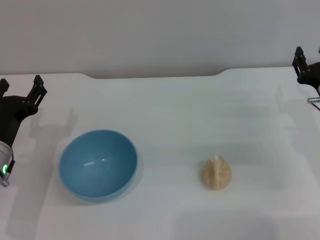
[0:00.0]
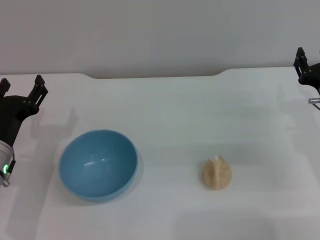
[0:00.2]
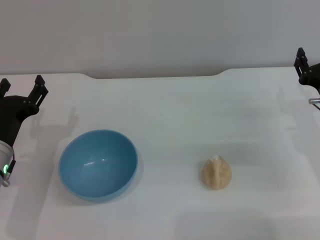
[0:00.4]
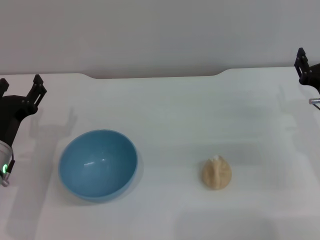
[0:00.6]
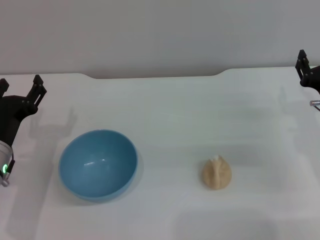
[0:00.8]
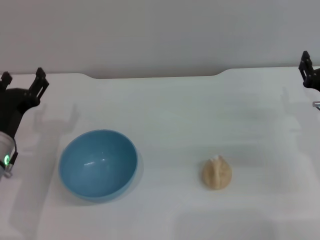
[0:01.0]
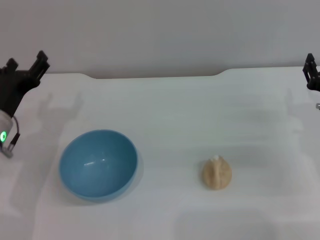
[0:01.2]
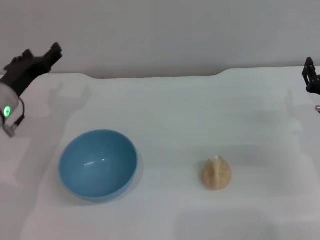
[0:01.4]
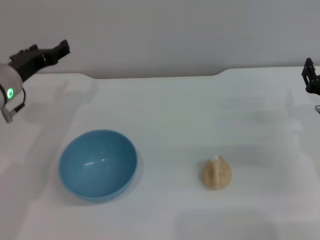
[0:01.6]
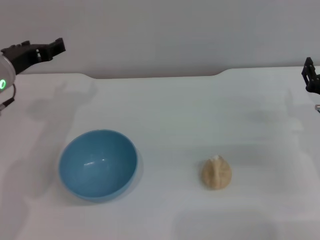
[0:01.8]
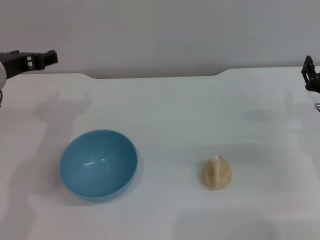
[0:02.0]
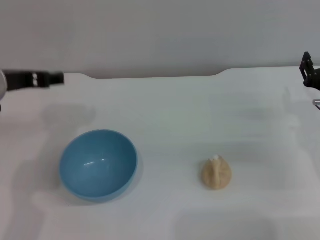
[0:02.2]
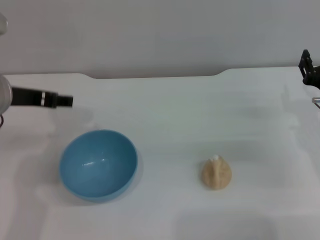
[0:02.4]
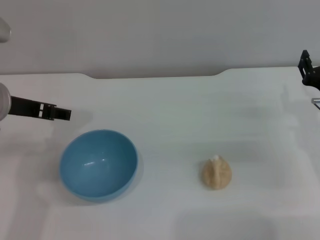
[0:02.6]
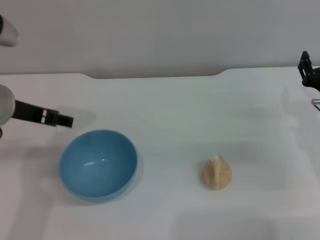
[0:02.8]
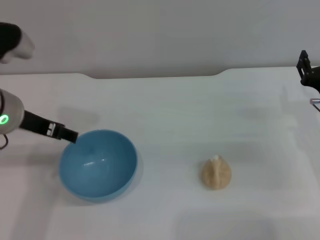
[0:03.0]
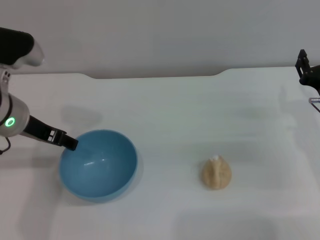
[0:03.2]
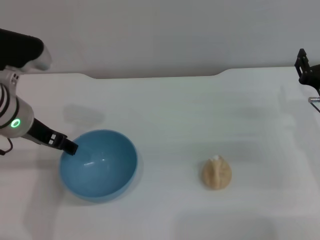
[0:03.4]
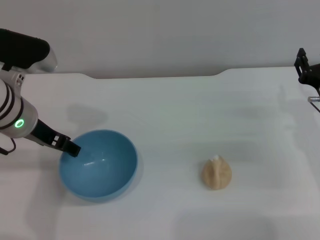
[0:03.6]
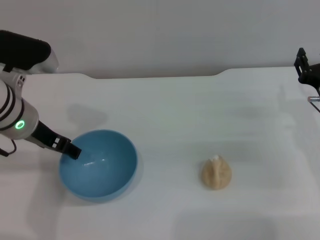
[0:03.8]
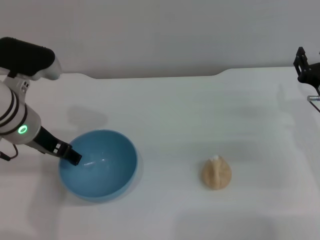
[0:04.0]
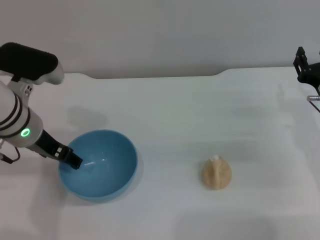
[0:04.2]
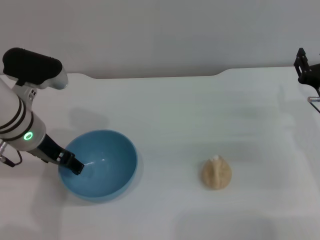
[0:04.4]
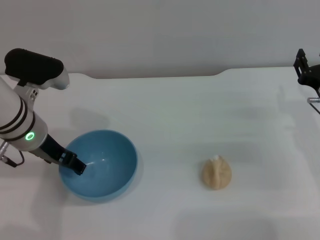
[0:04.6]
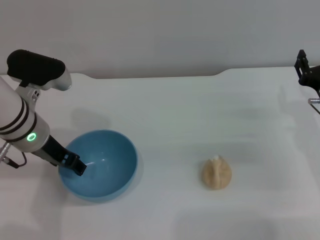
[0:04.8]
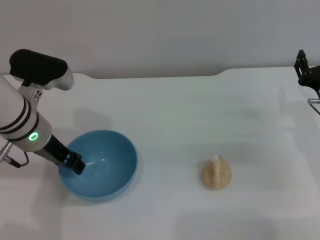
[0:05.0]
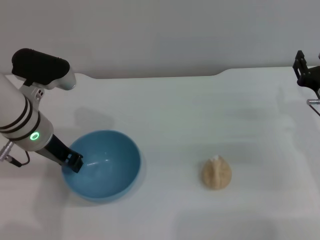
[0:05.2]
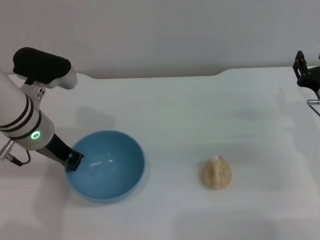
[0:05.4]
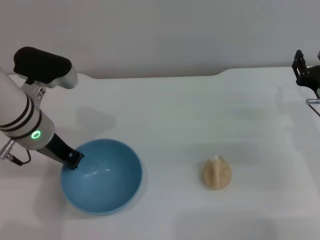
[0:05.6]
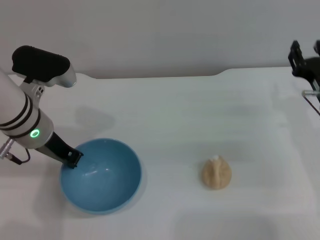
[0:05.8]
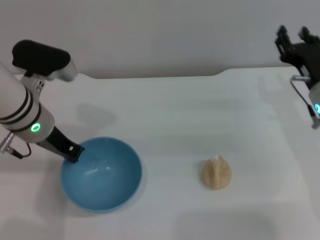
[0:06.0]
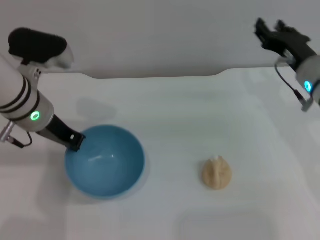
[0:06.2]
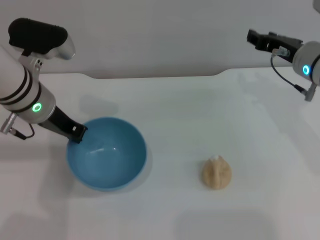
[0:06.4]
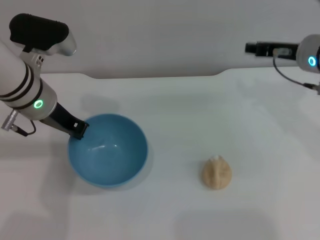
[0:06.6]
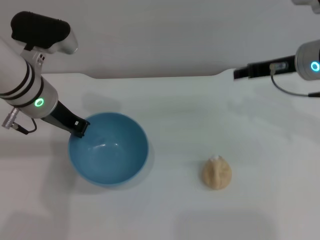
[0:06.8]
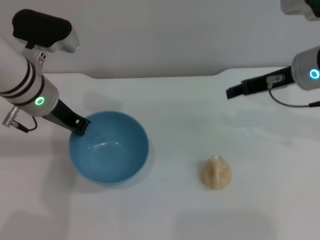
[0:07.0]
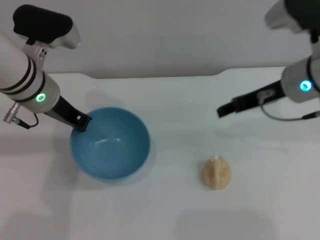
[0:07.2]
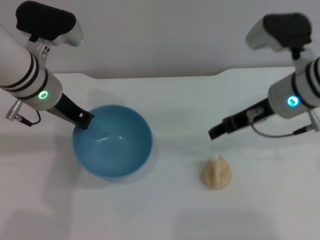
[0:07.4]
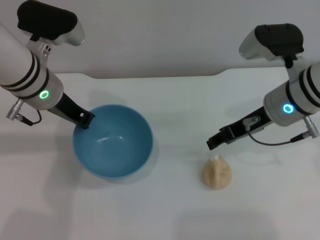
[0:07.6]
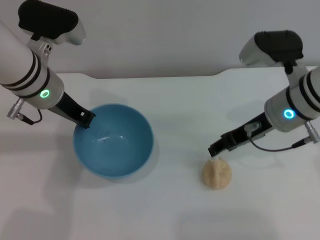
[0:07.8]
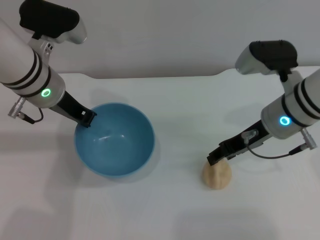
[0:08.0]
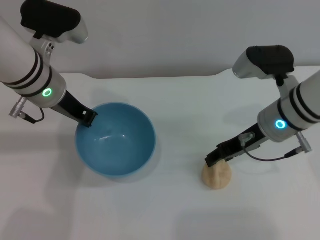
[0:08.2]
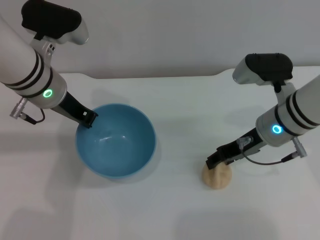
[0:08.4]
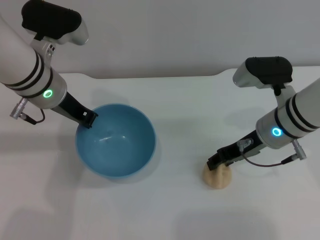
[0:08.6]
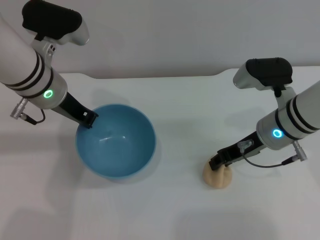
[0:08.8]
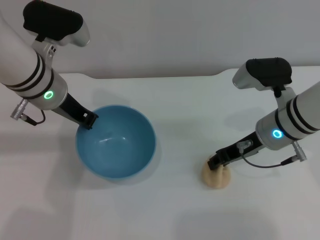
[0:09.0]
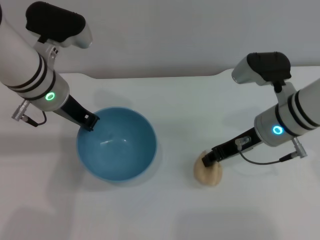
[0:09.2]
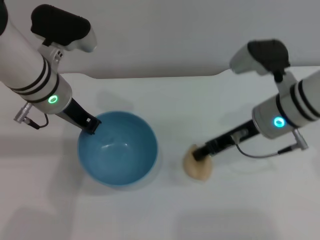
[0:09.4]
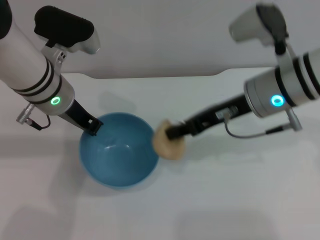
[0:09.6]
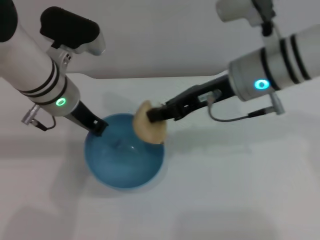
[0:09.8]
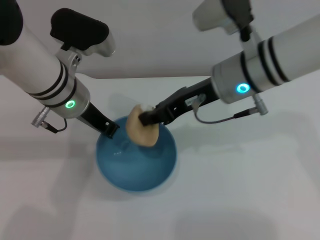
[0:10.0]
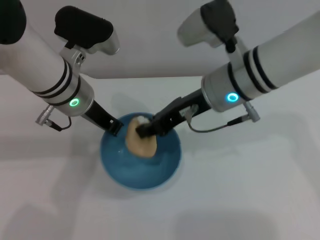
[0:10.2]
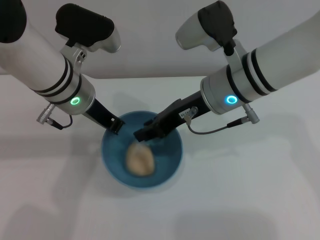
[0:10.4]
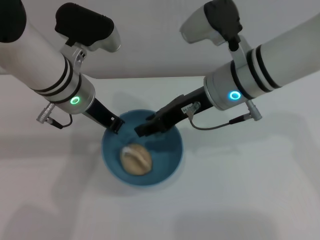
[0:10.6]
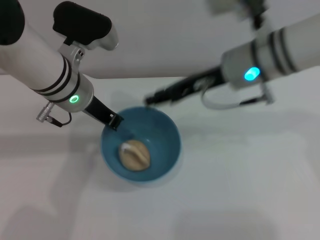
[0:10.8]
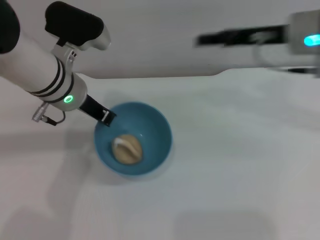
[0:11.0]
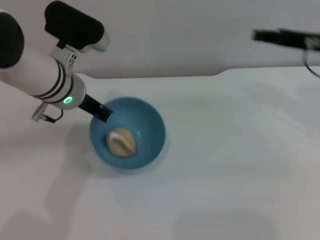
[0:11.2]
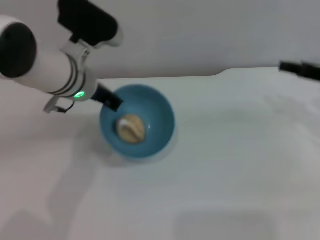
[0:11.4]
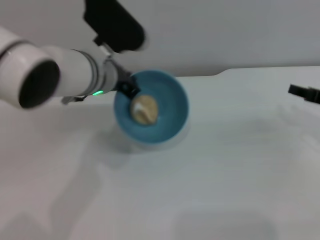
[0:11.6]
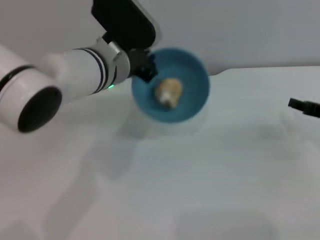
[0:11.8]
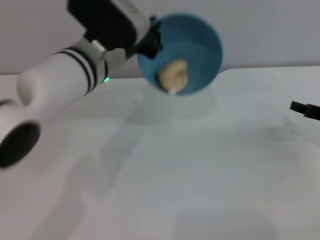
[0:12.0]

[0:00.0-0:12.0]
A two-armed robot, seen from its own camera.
Task of the whole recording: put the egg yolk pastry into the blue bowl and pour it out repeatedly.
Step, 0:00.0 to 0:06.6: Pick up the bowl with the left gripper.
Step, 0:06.8 to 0:09.4: Pick up the egg yolk pastry with the right gripper.
Step, 0:09.6 to 0:10.8: Place the egg yolk pastry into the bowl.
0:00.0 to 0:01.6: The left gripper travels forward and upward by roughly 10 cm.
0:01.6 to 0:03.0: The left gripper heads upward, covering about 10 cm.
0:03.0 to 0:04.4: The left gripper changes place by some 5 cm.
0:04.4 to 0:06.0: The left gripper closes its fingers.
0:06.0 to 0:07.6: The right gripper moves upward and to the left, some 10 cm.
0:07.6 to 0:09.0: The right gripper moves downward, some 5 cm.
0:09.0 to 0:10.4: The right gripper heads to the left and upward, covering about 10 cm.
0:10.4 to 0:12.0: The right gripper shifts approximately 25 cm to the right and downward, and opens.

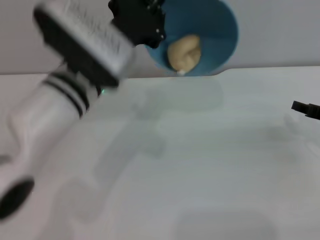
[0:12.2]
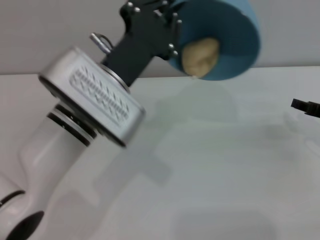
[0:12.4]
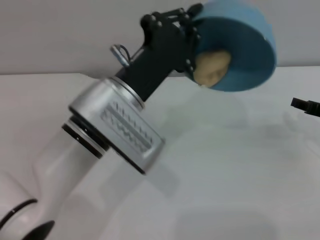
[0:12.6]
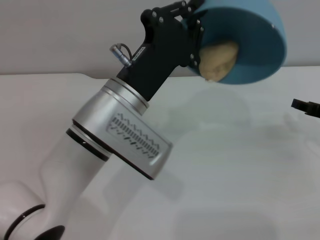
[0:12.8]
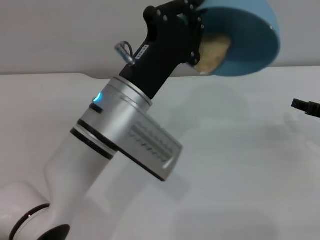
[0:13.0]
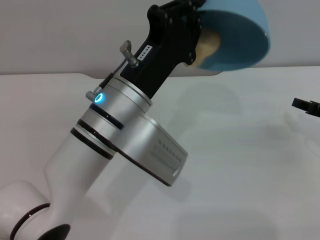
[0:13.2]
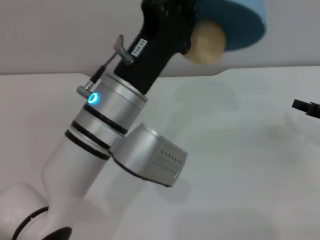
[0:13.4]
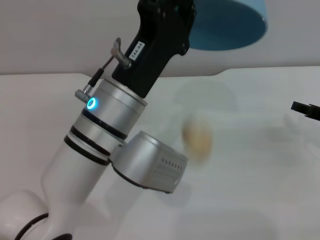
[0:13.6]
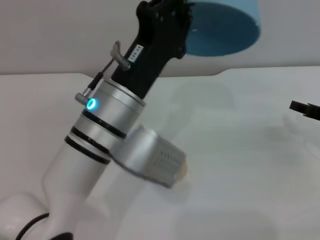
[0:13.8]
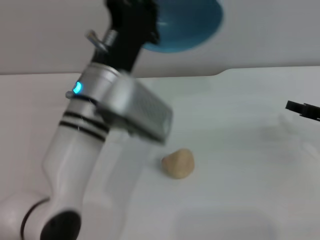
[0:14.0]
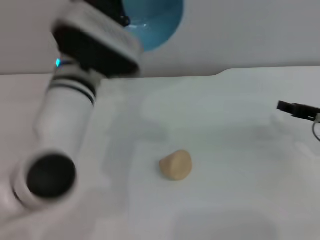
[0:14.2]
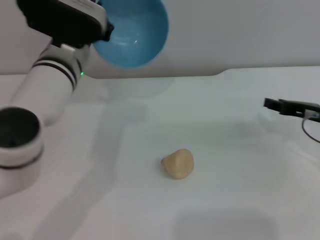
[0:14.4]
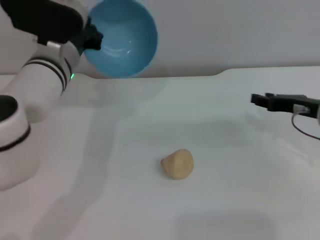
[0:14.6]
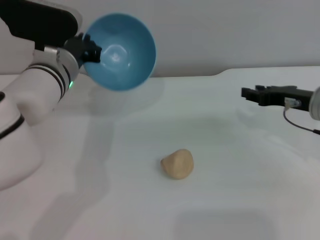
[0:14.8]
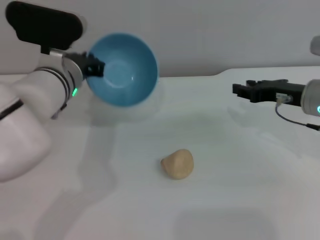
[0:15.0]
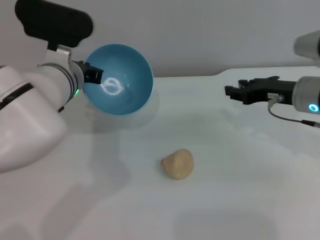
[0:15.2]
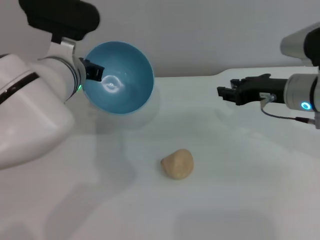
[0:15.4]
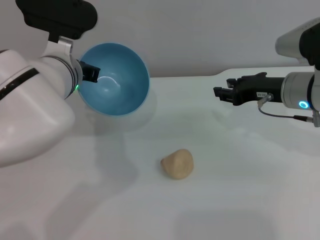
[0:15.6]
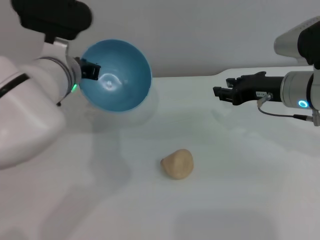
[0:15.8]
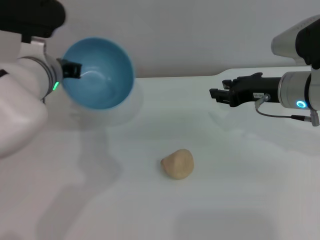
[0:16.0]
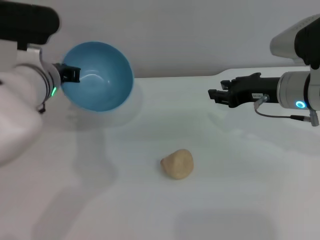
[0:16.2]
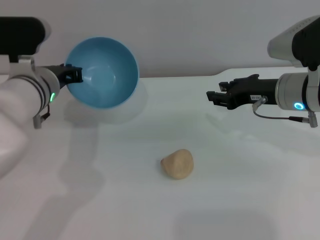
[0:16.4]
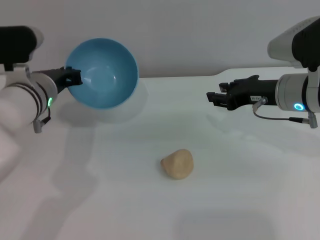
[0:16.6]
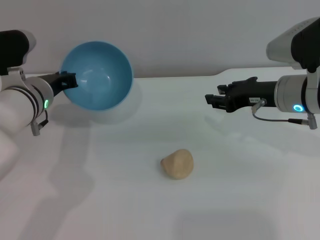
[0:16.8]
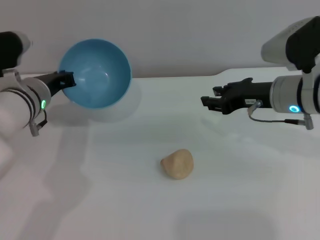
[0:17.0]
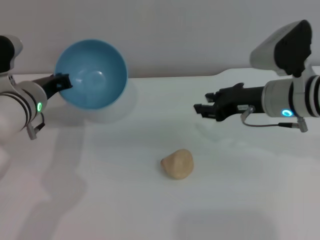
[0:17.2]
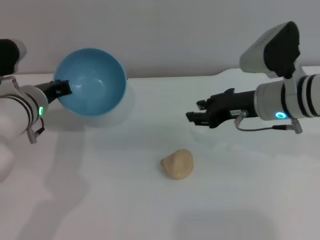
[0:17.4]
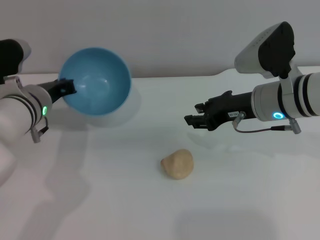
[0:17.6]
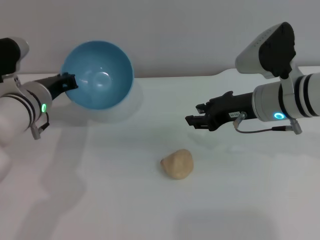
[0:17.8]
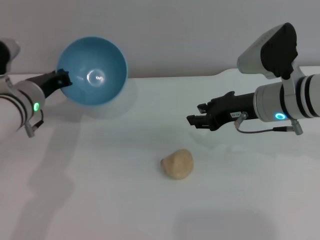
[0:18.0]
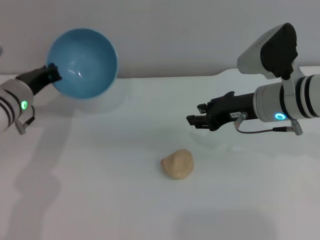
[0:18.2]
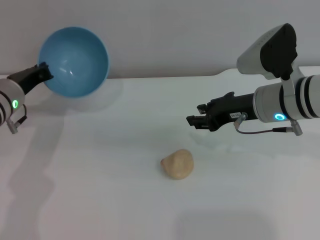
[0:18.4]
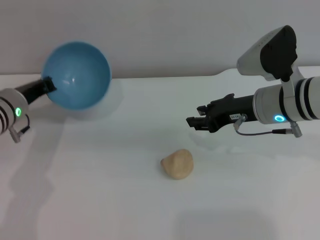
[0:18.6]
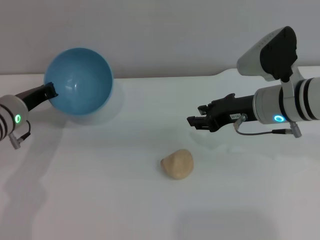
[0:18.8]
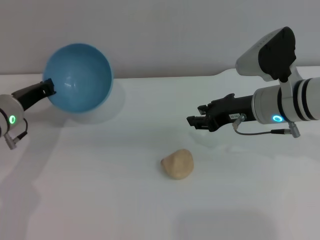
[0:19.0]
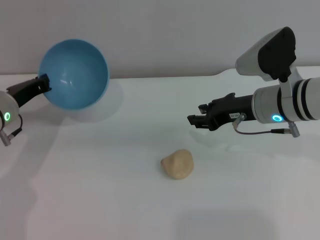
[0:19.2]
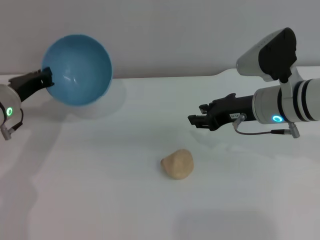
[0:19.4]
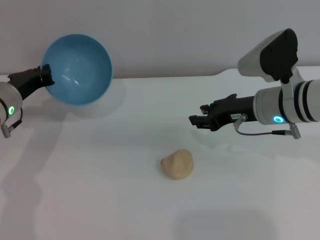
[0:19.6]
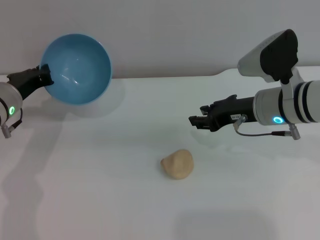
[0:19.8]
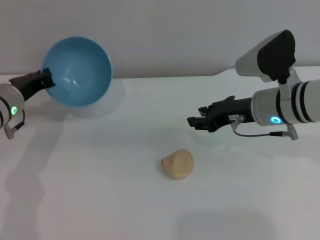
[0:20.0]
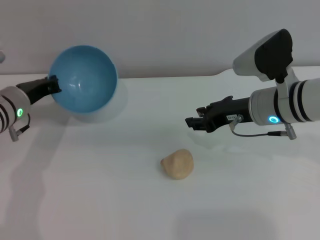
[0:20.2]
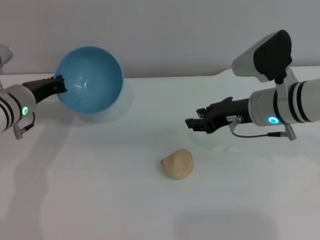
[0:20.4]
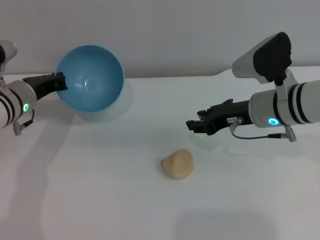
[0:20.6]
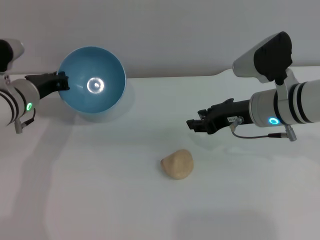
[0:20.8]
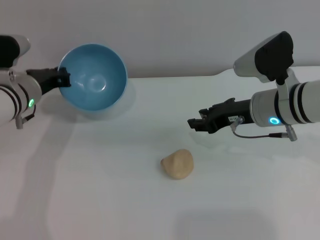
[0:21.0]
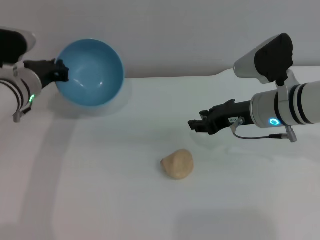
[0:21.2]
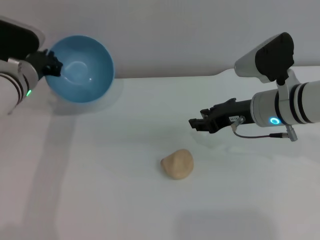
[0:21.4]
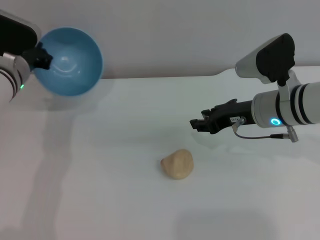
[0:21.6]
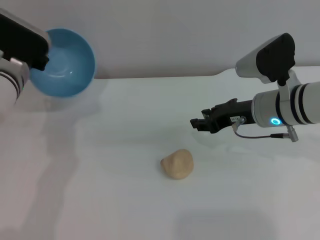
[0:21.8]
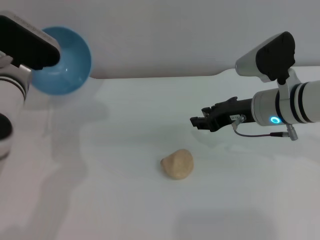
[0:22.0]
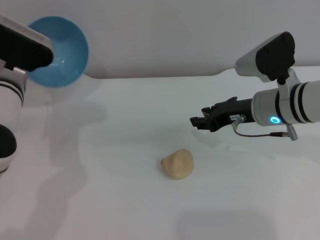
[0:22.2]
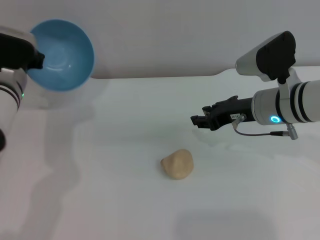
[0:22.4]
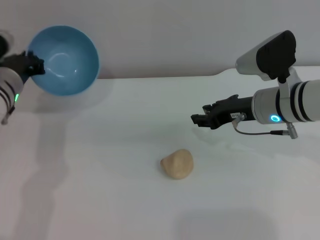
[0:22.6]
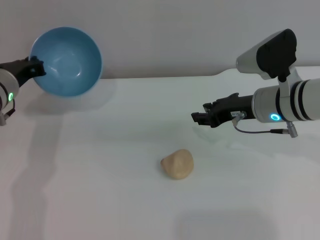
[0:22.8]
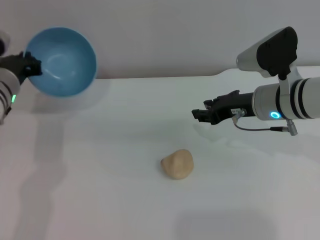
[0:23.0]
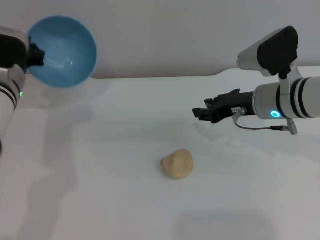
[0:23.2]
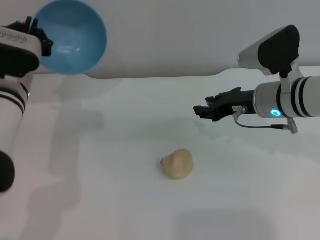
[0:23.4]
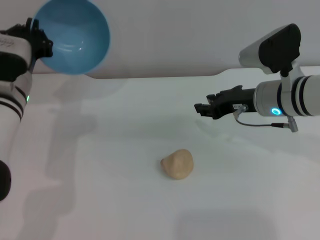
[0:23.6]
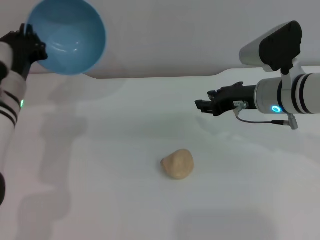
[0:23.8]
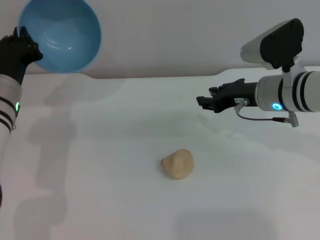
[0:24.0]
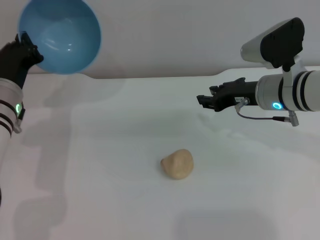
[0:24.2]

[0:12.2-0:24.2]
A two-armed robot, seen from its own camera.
Task of the whole recording: put the egg yolk pastry into the blue bowl and pour it out repeatedly.
Step, 0:12.2 to 0:14.0: Pour the egg yolk pastry out of bowl.
0:12.2 to 0:13.8: The left gripper changes place by approximately 5 cm.
0:13.8 to 0:15.2: The right gripper goes roughly 10 cm to the left and upward; the left gripper is displaced forward and to the left by about 10 cm.
0:15.2 to 0:16.6: The left gripper heads to the left, covering some 5 cm.
0:16.6 to 0:18.2: The left gripper goes about 5 cm to the left.
0:18.2 to 0:19.8: There are only small adjustments of the grippers.
0:19.8 to 0:21.2: The grippers make only small movements.
